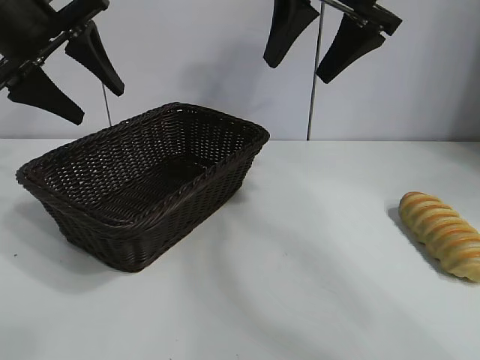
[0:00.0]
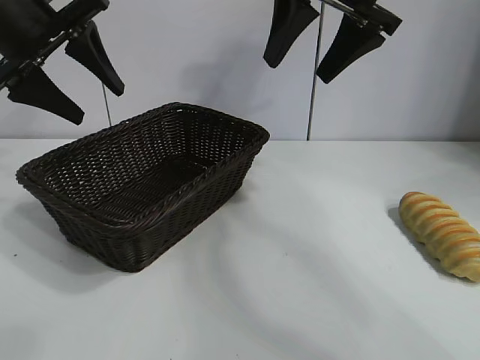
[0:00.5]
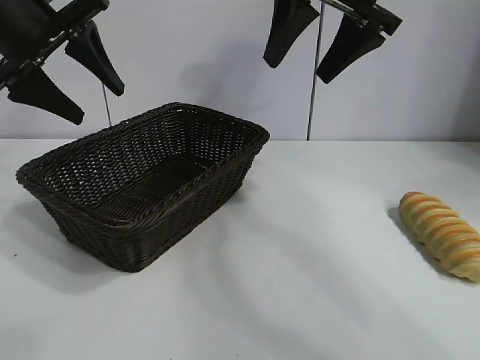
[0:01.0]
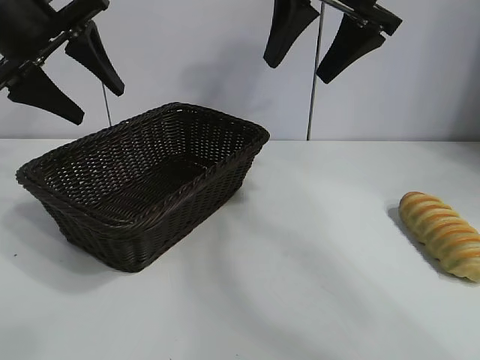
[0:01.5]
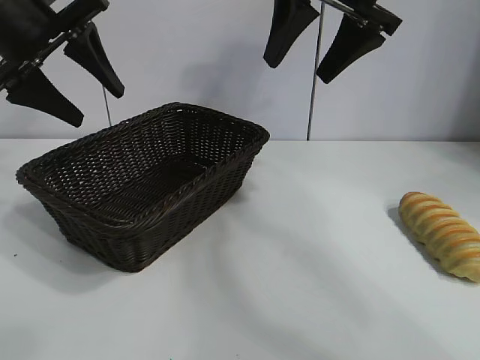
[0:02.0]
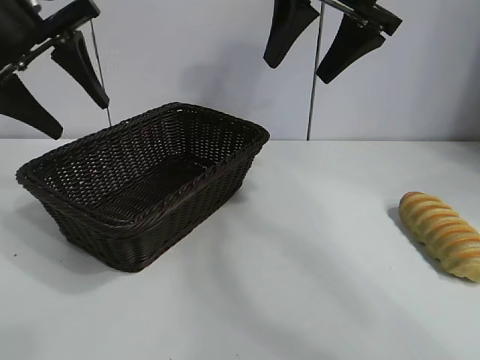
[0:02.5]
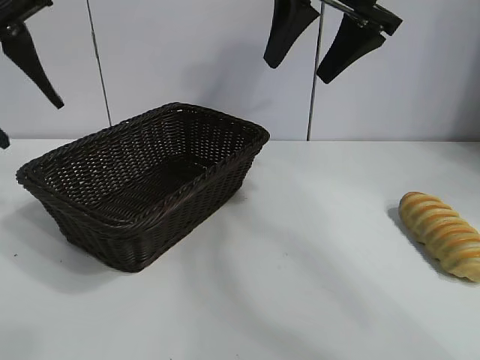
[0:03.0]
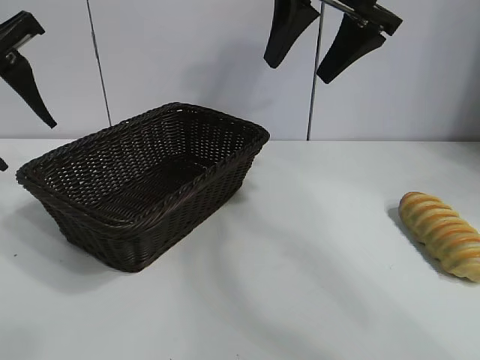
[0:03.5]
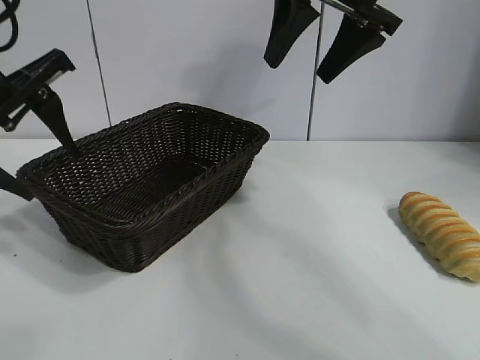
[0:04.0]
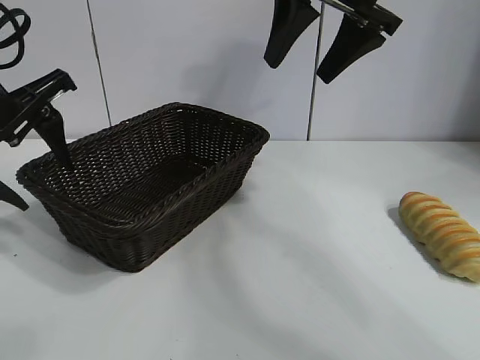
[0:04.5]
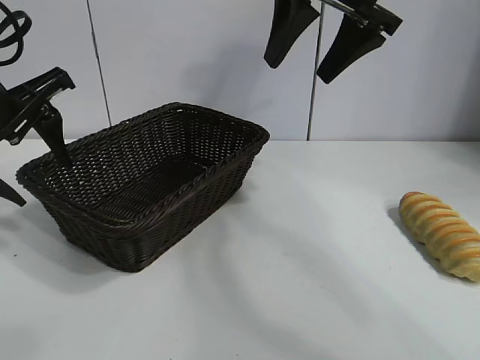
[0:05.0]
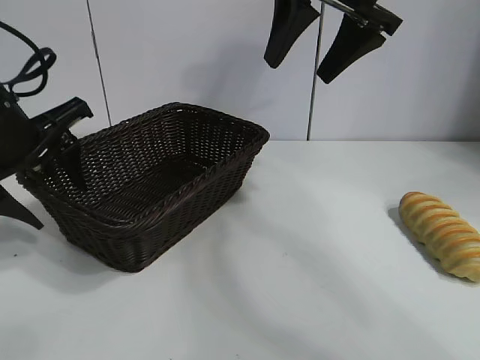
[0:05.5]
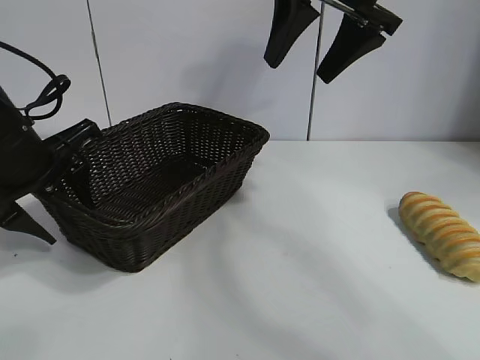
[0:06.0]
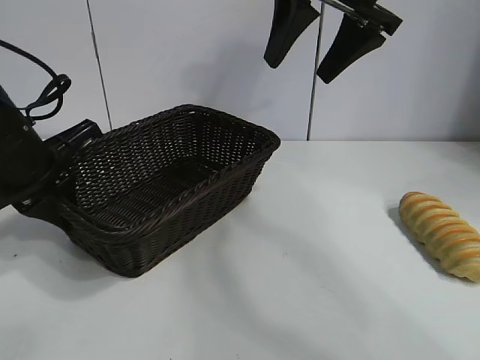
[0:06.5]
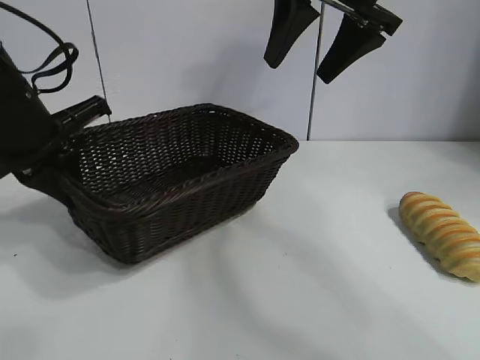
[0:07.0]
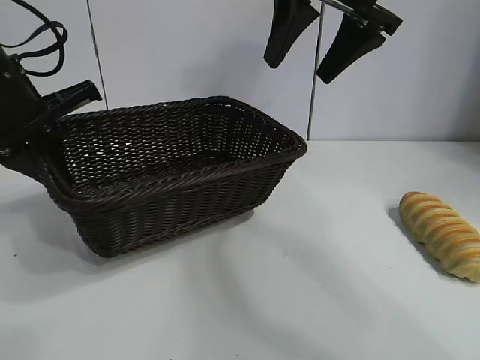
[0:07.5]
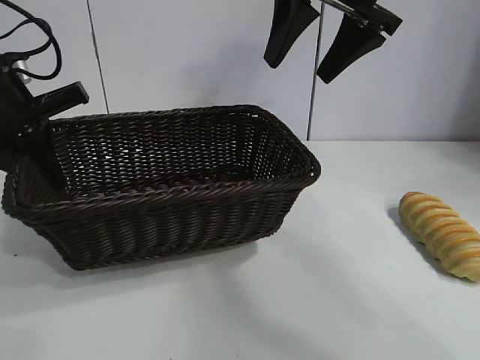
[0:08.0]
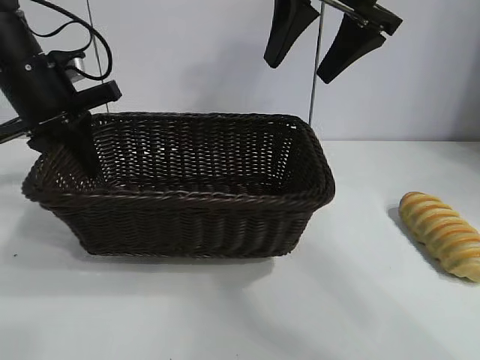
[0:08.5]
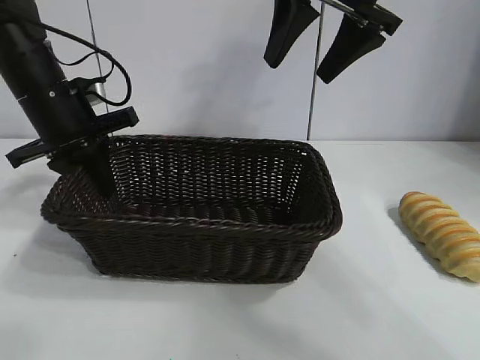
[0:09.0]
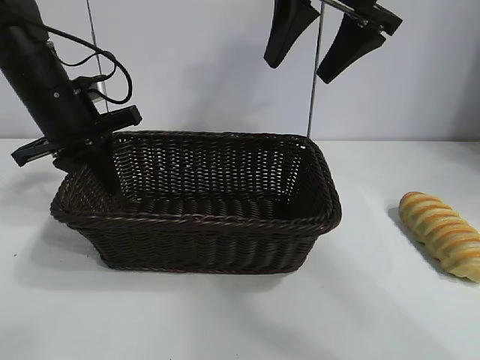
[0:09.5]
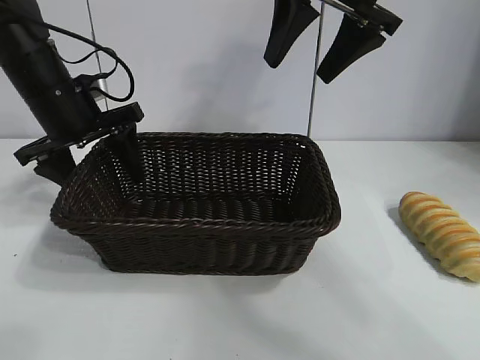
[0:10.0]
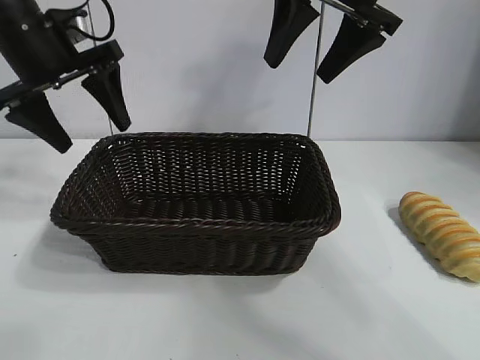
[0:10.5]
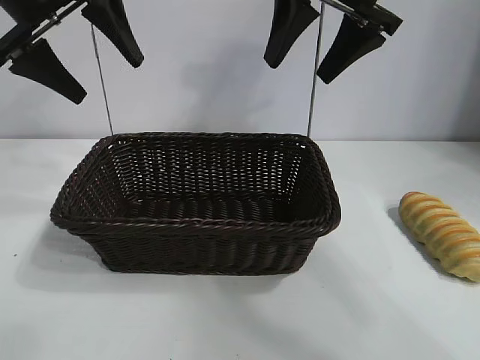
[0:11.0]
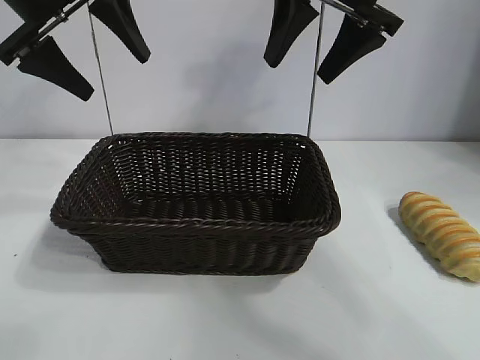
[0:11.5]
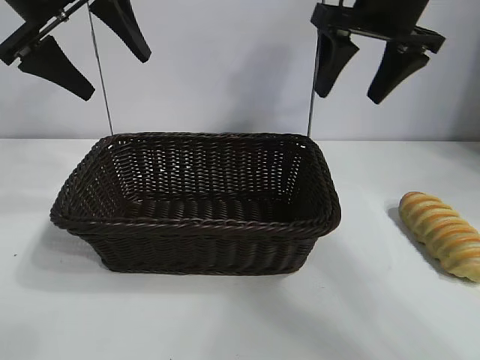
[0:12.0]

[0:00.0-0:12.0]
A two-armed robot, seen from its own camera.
Task of the whole recording: pick up the long bread and put it into the basket.
Step, 0:02.0 to 0:06.5: Grasp the basket with the left gripper.
Step, 0:07.0 to 0:10.0: Place the basket in the center of the table with the left gripper.

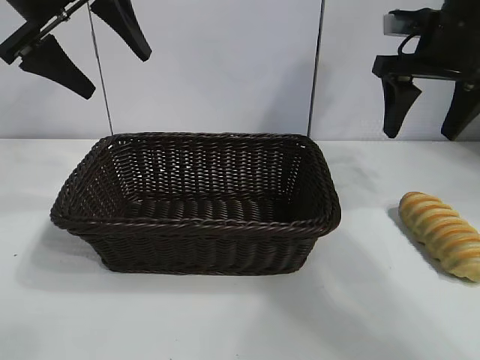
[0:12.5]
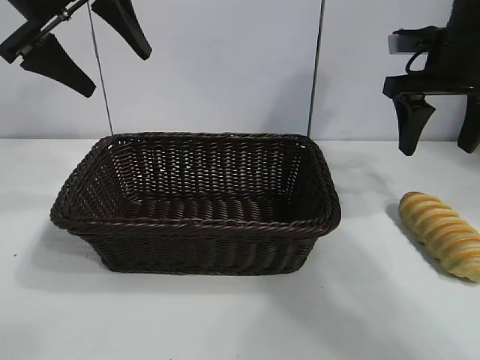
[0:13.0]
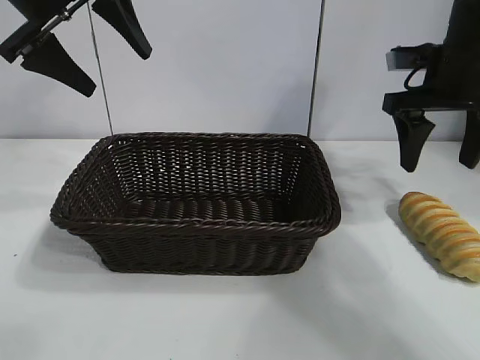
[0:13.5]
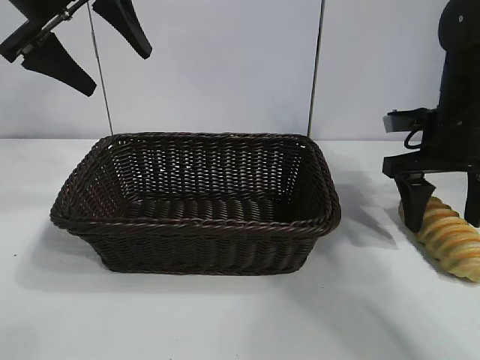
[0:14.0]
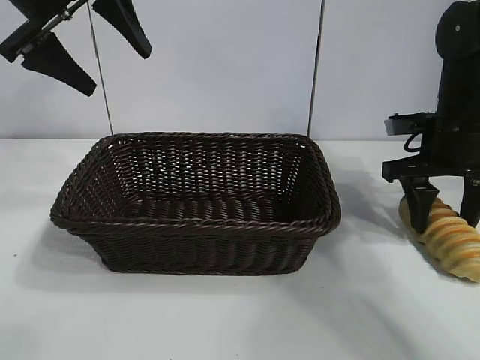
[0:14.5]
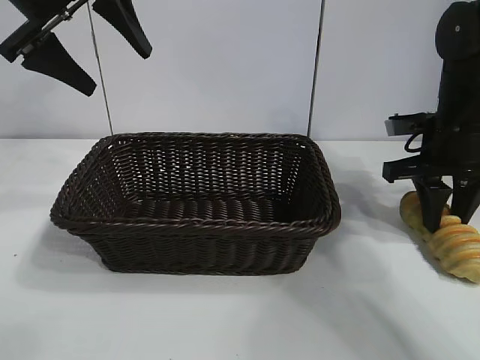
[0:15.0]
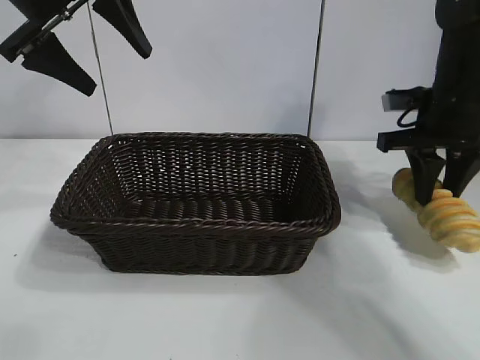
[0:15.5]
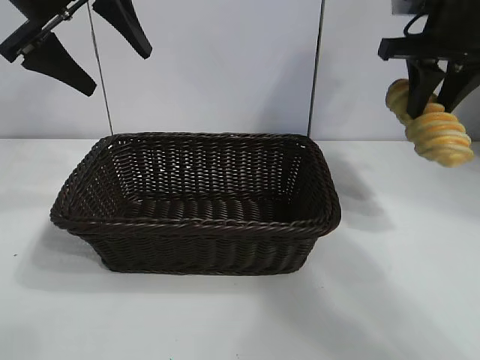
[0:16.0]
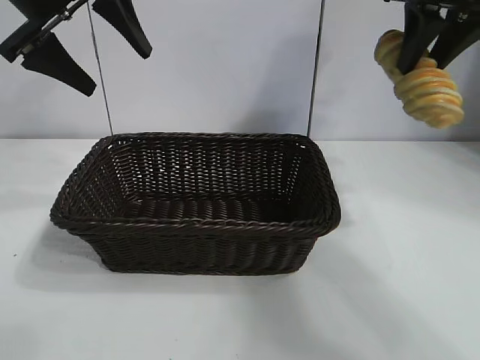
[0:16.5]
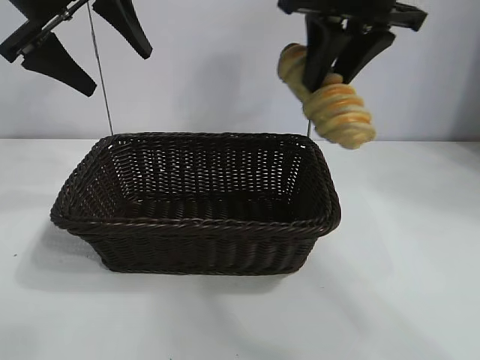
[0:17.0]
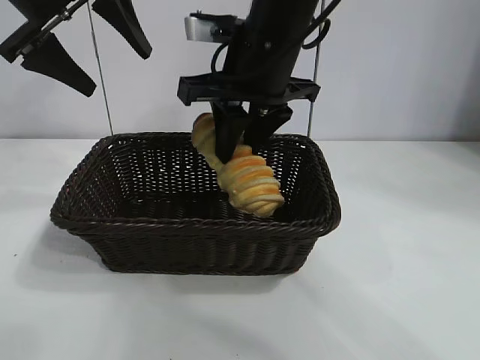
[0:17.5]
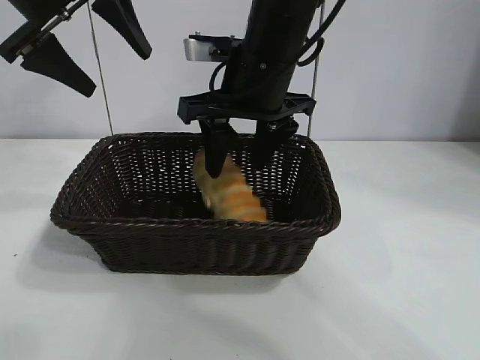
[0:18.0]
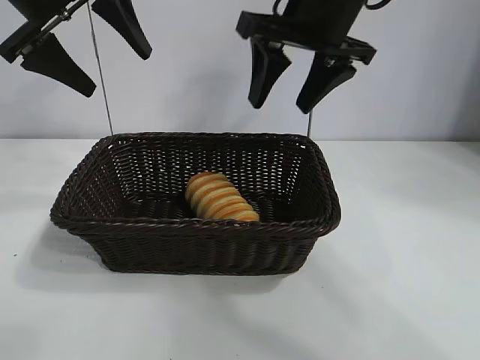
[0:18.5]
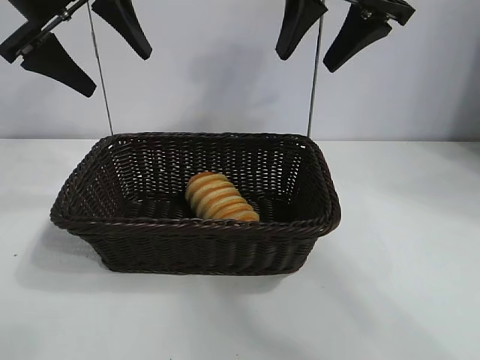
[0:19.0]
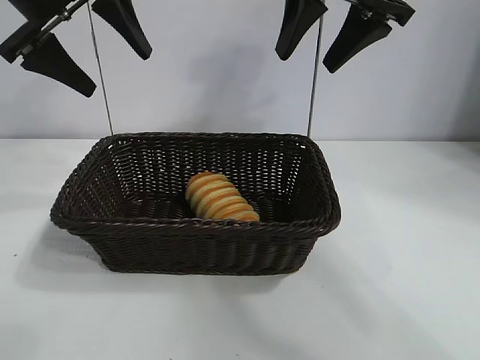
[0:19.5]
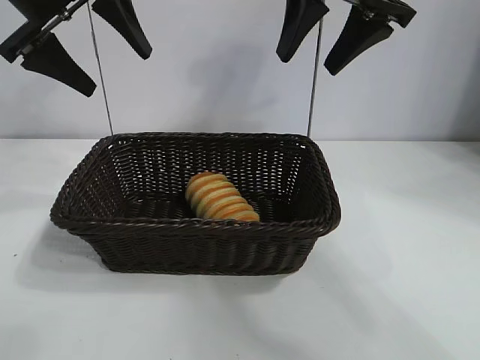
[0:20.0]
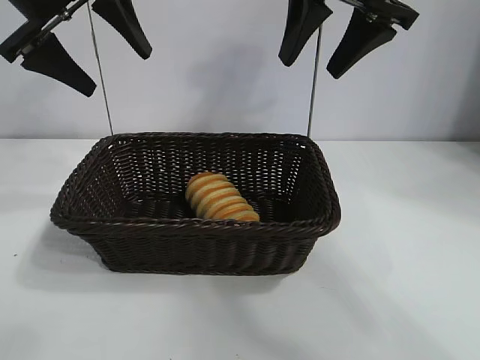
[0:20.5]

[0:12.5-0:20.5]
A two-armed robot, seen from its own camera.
Task of the whole recording: pick up the long bread and put it into the basket.
Step, 0:12.5 to 0:15.0: Grasp the long bread with right gripper.
Step, 0:15.5 to 0:18.0: Place the long bread in the basket with right gripper.
